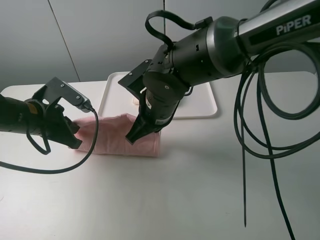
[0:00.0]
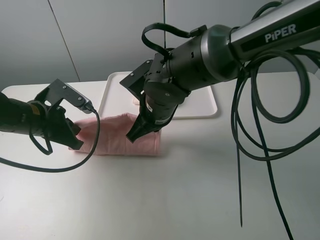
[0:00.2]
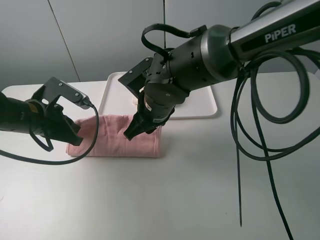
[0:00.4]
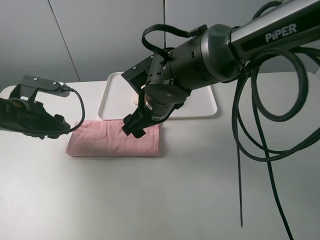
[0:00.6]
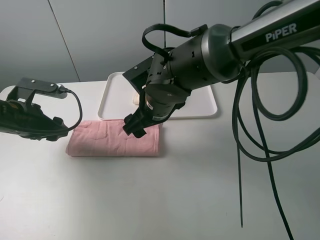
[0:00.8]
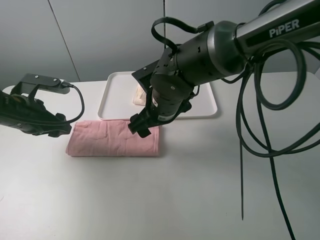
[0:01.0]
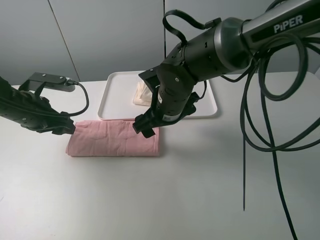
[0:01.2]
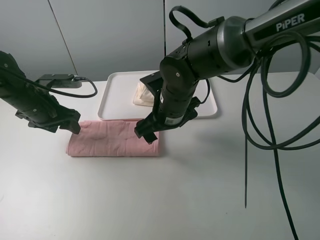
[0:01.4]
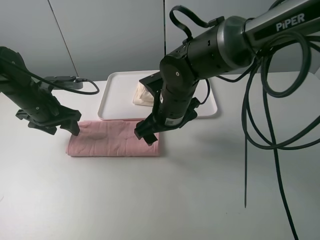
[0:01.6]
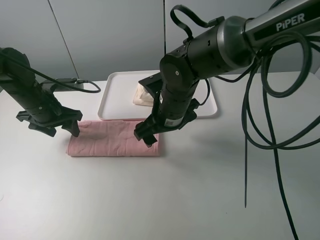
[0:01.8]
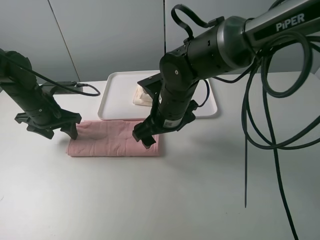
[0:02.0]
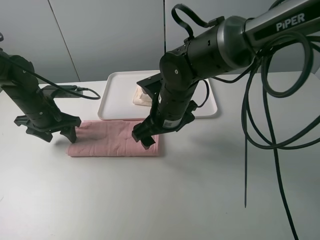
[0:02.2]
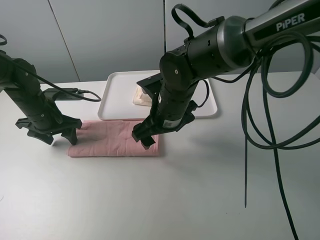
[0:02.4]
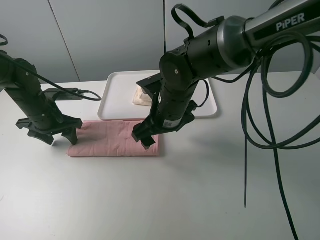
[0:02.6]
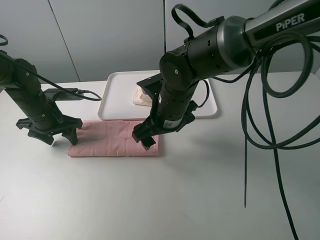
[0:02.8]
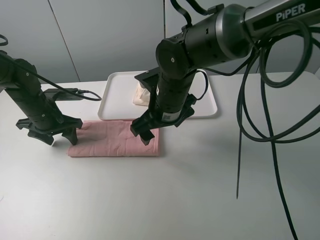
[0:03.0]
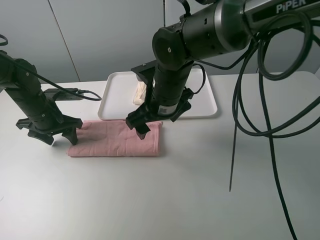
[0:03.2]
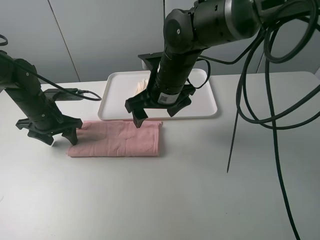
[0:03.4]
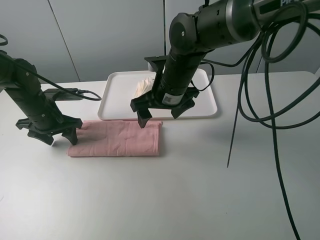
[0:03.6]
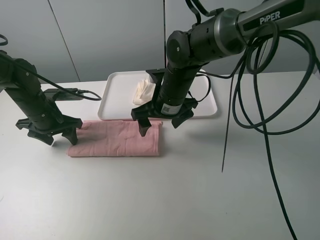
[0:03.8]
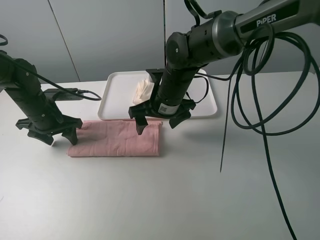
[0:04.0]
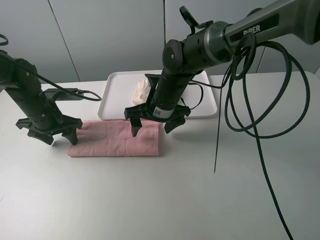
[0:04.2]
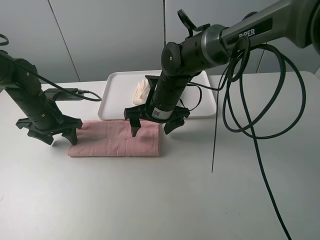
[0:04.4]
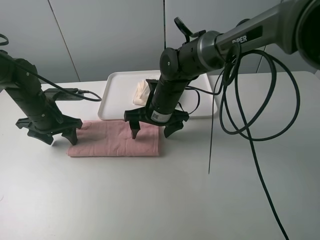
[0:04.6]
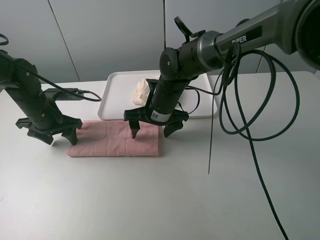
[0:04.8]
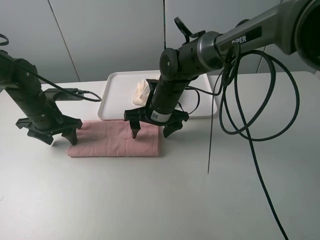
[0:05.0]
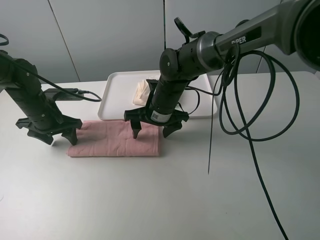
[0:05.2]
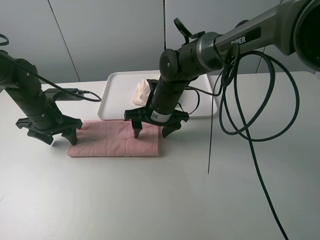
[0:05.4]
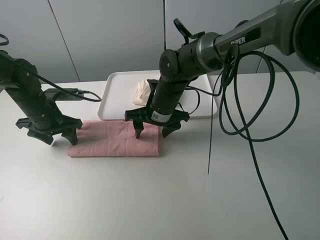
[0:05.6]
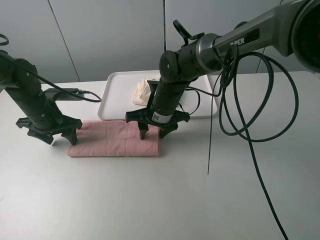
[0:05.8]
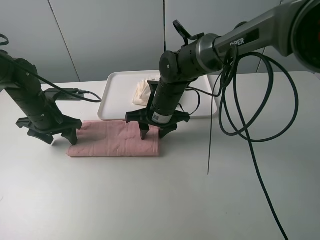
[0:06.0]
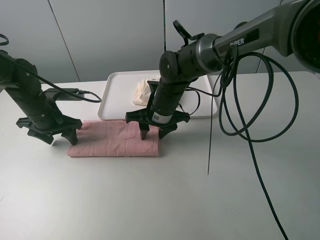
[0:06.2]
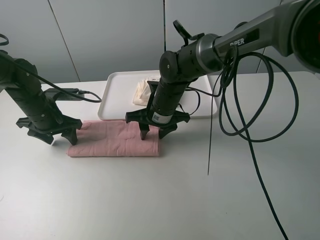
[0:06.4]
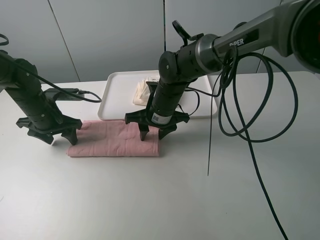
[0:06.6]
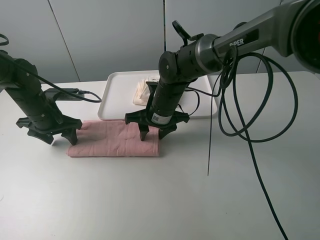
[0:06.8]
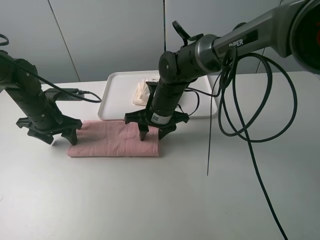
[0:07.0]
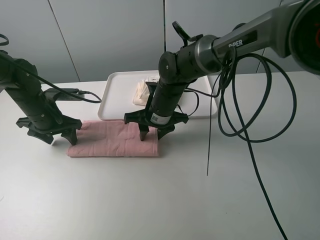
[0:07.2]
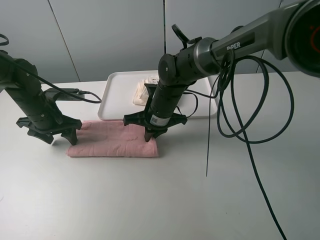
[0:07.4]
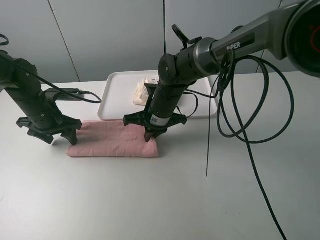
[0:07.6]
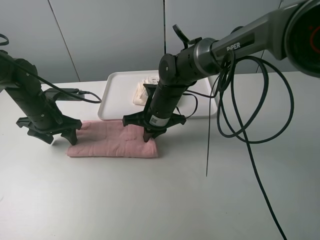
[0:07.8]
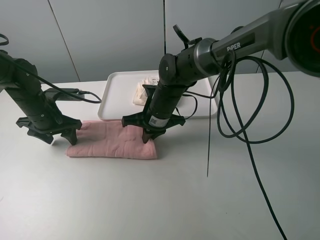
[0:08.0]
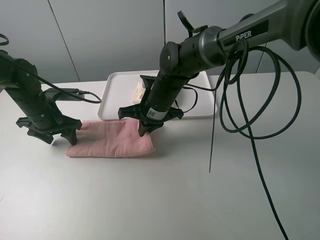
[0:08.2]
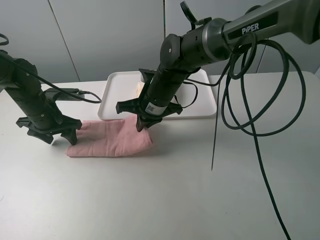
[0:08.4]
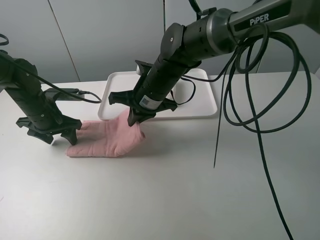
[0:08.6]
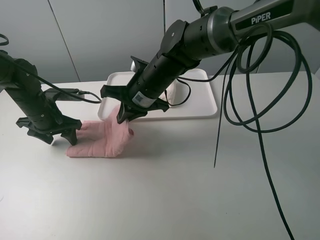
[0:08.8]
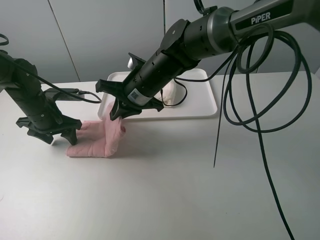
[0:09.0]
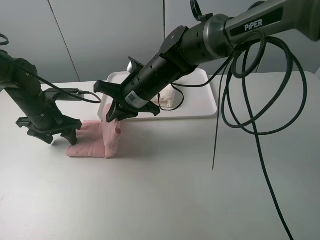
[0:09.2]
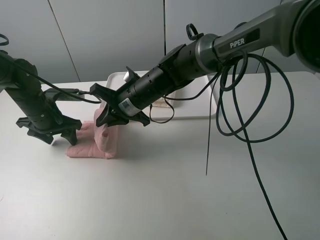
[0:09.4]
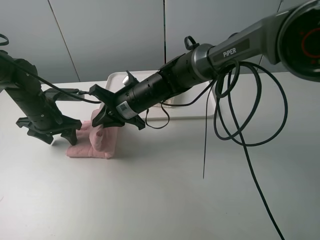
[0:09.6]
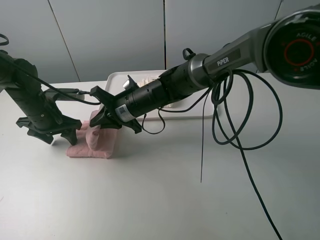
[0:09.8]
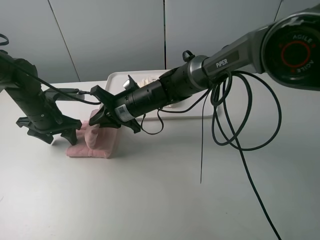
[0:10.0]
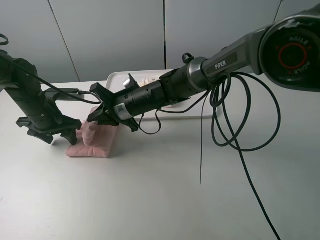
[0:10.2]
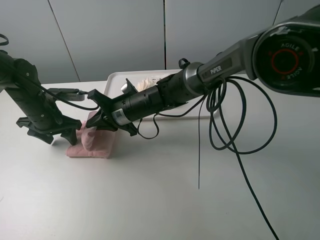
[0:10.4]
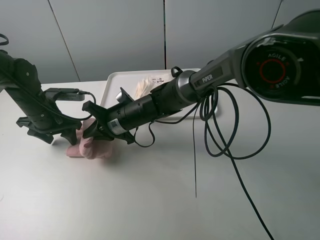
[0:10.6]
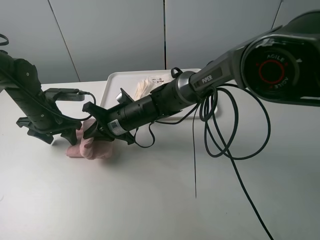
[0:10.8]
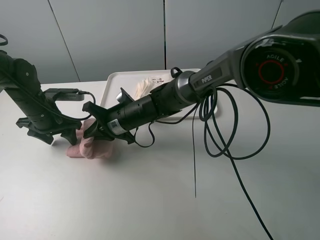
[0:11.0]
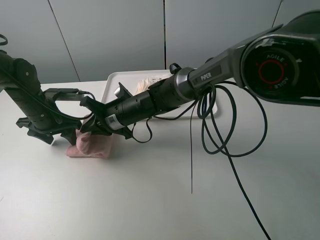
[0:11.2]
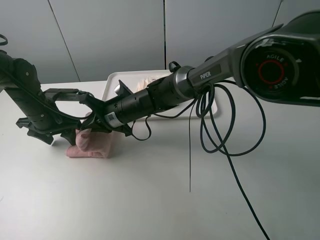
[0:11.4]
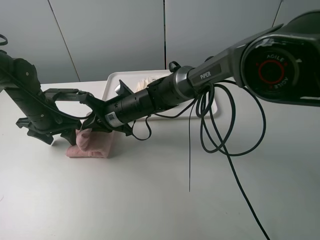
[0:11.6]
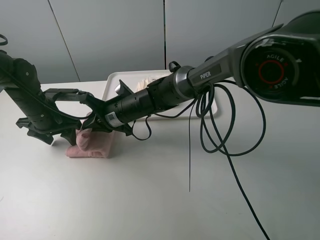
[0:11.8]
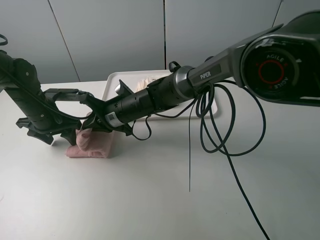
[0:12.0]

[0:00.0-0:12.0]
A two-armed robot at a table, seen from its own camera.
Task of the whole recording: fold one of the towels by two grippers and place it on the tray,then fold another towel by two grippers and place it on the folded towel.
Step, 0:01.0 to 0:02.6: Press the pink towel with the left gripper.
Step, 0:02.8 to 0:07.6: Grasp the pink towel with the right gripper.
0:00.0 to 0:01.6: The left gripper travels forward by roughly 5 cm, and opens; the right gripper opens its fingers.
0:01.6 to 0:03.0: The grippers stay close to where they were, moving slightly.
0:03.0 to 0:04.4: The right gripper moves roughly 5 cm.
0:04.4 to 0:06.0: The right gripper closes its fingers.
0:06.0 to 0:07.6: The right gripper closes up.
0:07.6 to 0:09.0: The right gripper shifts roughly 10 cm upward.
0:09.0 to 0:10.4: The right gripper travels downward by roughly 10 cm.
0:10.4 to 0:12.0: The grippers stay close to where they were, moving slightly.

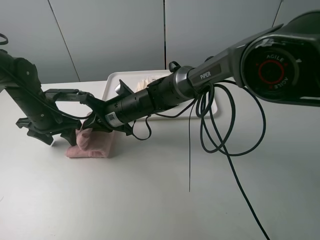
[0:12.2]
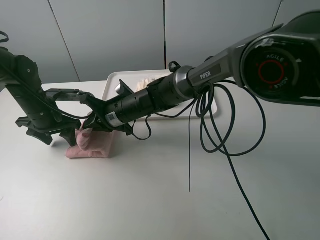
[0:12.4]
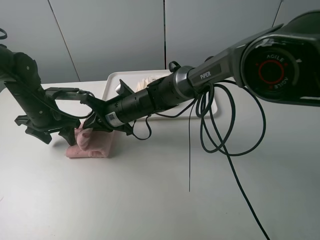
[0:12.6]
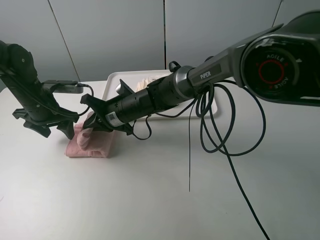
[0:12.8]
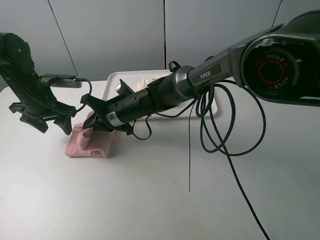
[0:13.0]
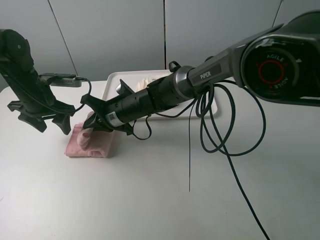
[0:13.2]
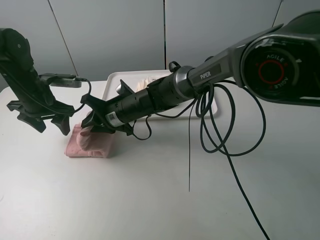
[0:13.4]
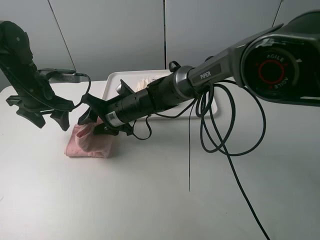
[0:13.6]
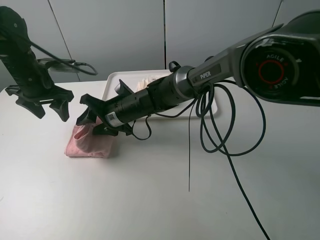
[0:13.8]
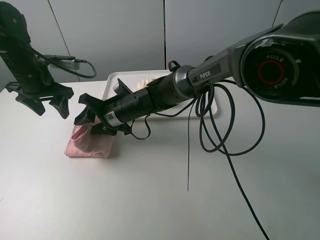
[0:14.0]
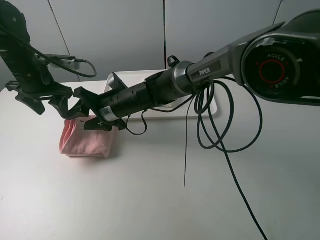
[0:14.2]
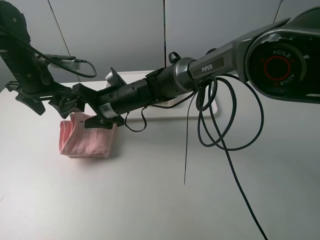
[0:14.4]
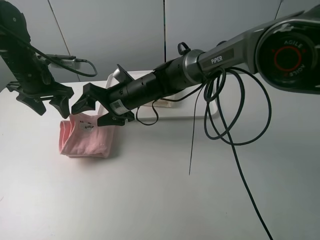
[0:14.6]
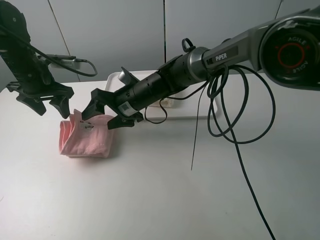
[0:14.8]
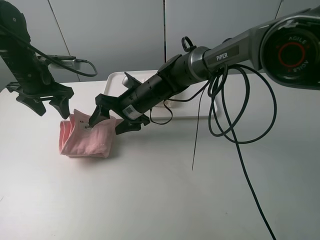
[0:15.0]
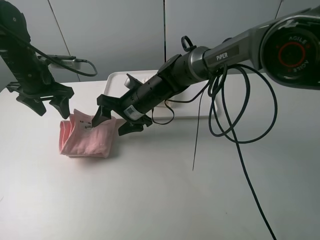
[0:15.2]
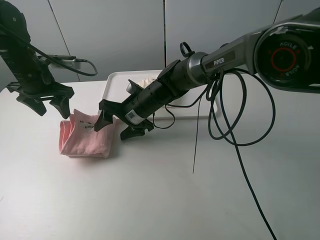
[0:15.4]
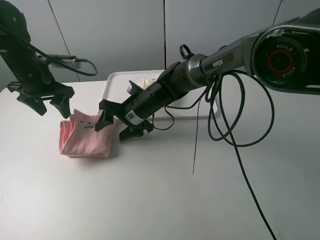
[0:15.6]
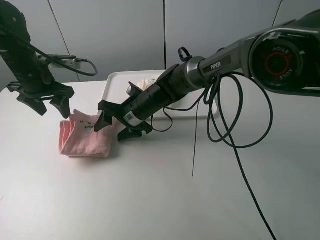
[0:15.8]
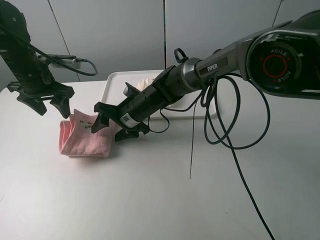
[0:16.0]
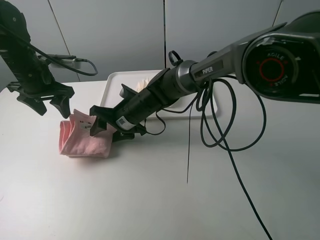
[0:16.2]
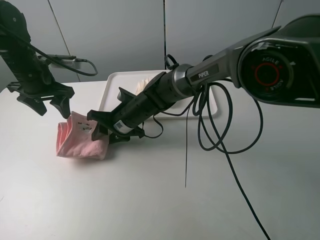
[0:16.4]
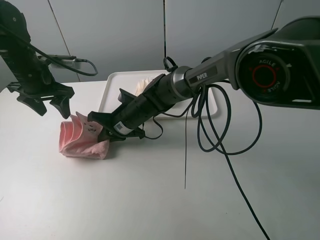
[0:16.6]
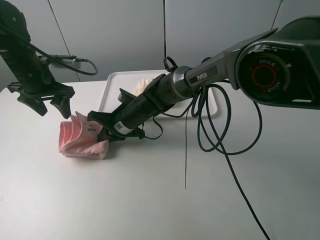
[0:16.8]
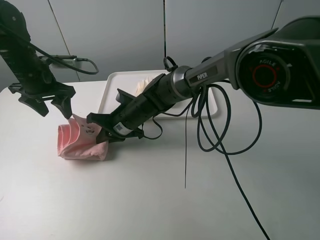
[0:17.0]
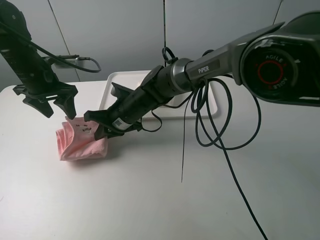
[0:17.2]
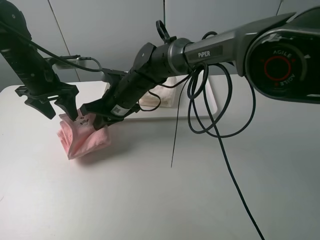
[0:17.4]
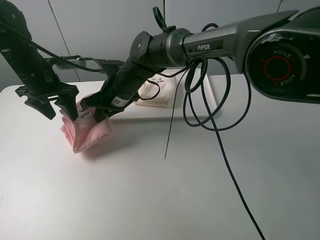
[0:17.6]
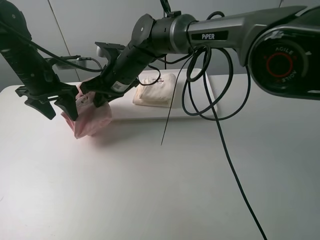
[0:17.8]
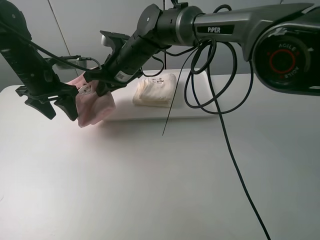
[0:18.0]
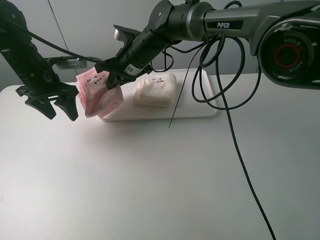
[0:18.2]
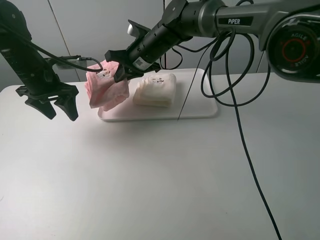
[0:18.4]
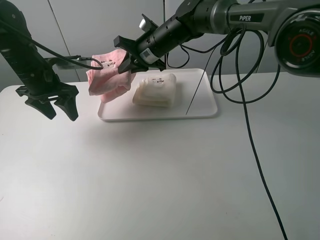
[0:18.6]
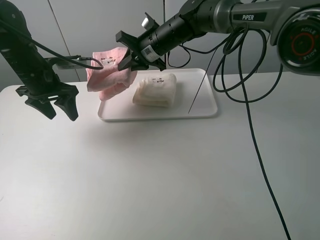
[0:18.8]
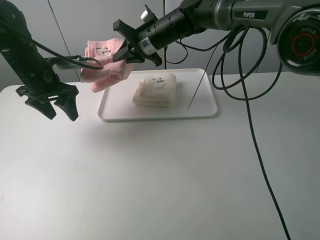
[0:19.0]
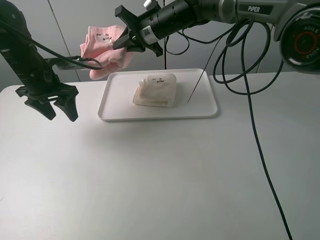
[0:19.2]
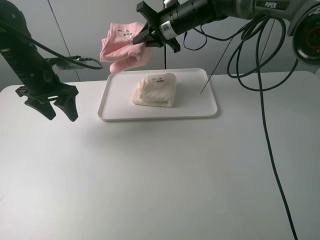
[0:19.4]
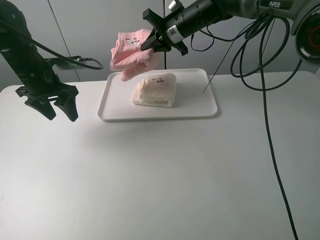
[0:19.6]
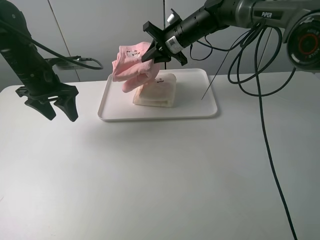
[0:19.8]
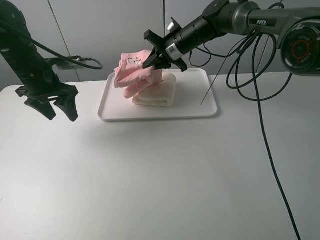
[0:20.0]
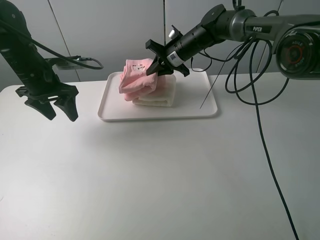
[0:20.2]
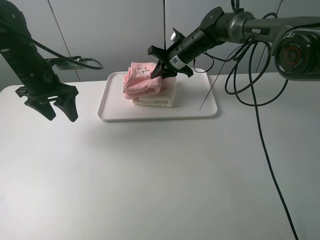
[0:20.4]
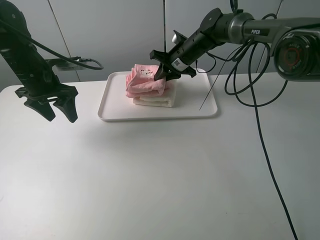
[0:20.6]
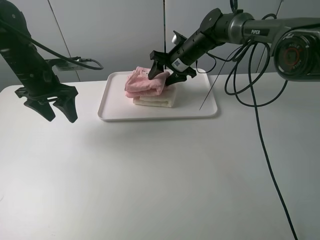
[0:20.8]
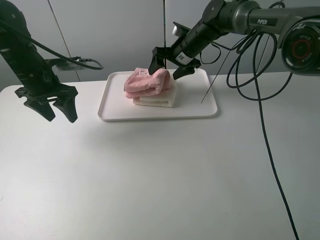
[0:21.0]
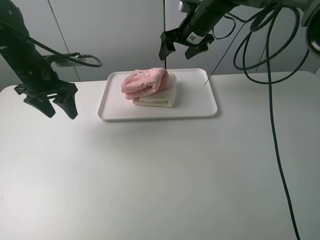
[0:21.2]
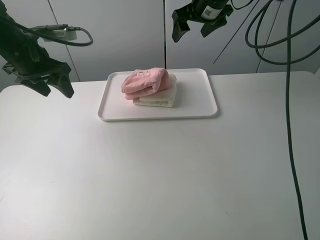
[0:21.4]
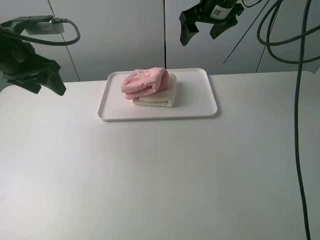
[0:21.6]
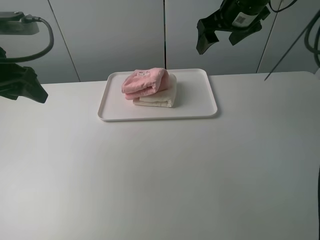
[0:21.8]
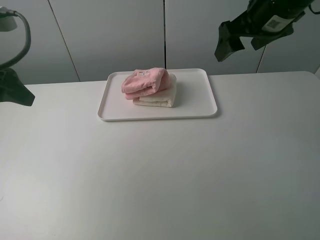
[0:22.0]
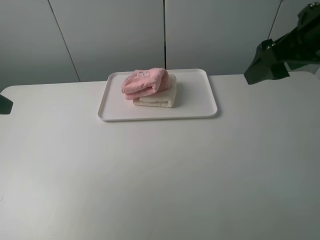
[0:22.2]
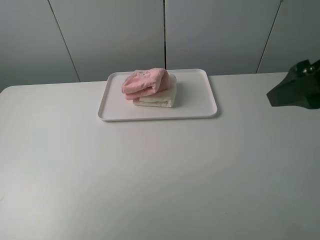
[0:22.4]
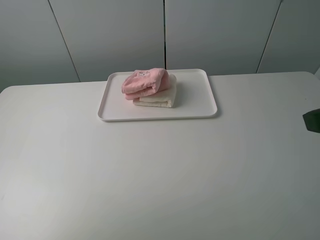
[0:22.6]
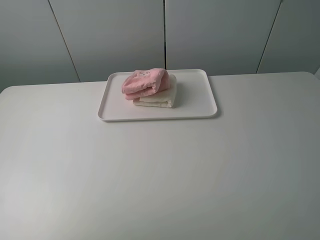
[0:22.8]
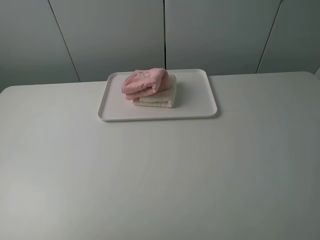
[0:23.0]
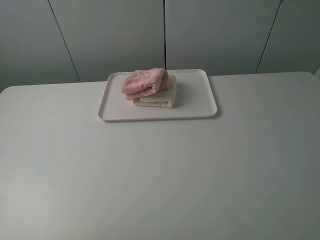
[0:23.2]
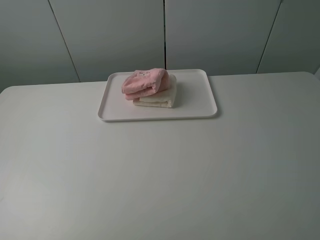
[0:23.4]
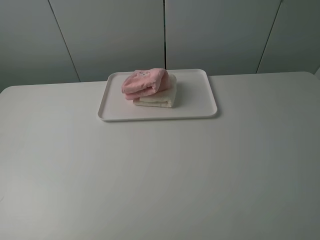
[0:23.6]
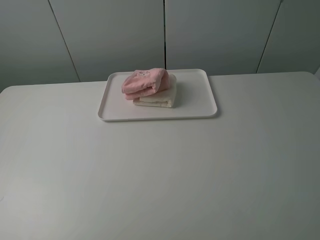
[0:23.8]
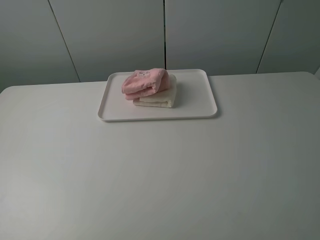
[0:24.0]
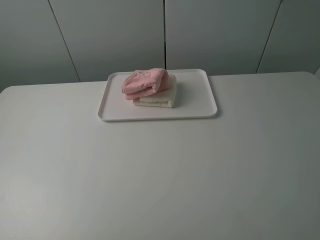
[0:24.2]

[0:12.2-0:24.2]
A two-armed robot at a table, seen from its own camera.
Task of the whole recording: fold one of the towels by two grippers and place it on the tray,then fold another towel by two grippers and place it on the folded towel.
Step, 0:14.2 to 0:16.6: Grasp the pink towel with the right gripper.
Step, 0:16.8 to 0:21.2: Place the pink towel on the white towel with the right gripper.
0:12.2 to 0:13.8: The left gripper goes some 10 cm upward.
0:15.2 to 0:16.6: The right gripper closes.
0:16.6 to 0:18.2: The right gripper heads upward and forward, covering approximately 15 cm.
0:18.2 to 0:19.8: The right gripper heads to the right and forward, covering some 10 cm.
0:19.8 to 0:21.2: The right gripper shifts by roughly 5 cm, and opens its fingers.
0:21.2 to 0:22.6: The two grippers go roughly 35 cm backward.
0:22.6 to 0:24.2: Both grippers travel together backward, some 5 cm.
